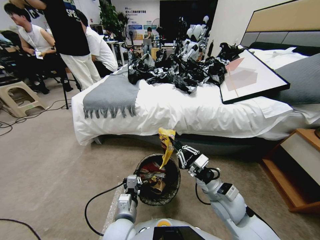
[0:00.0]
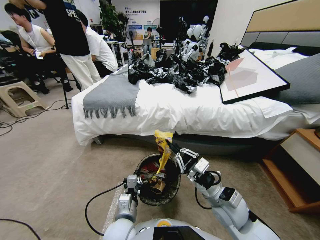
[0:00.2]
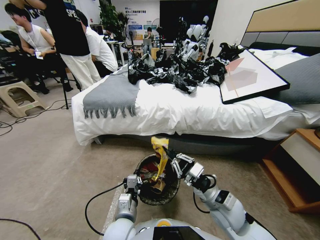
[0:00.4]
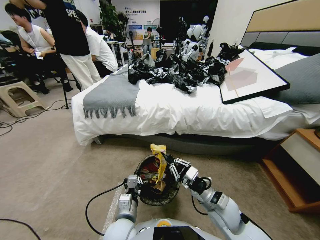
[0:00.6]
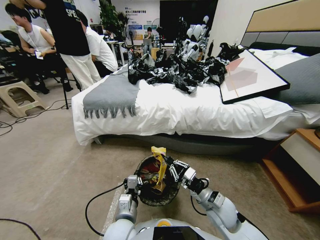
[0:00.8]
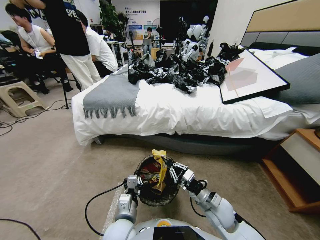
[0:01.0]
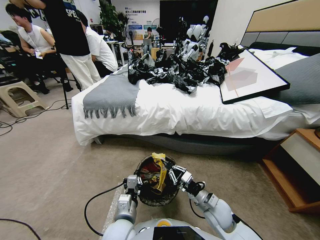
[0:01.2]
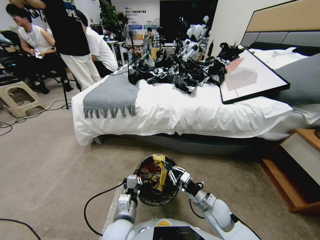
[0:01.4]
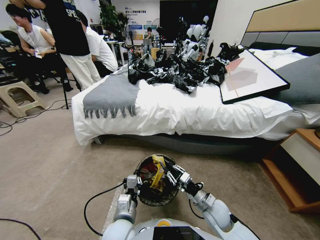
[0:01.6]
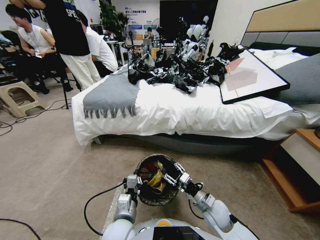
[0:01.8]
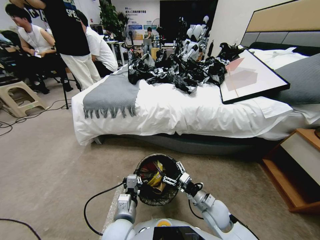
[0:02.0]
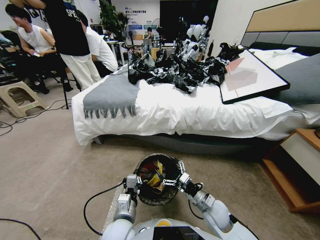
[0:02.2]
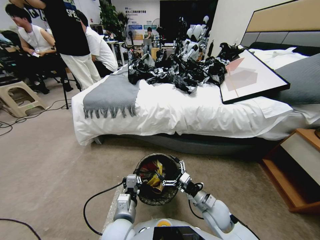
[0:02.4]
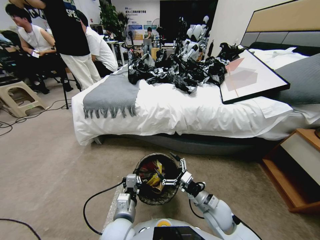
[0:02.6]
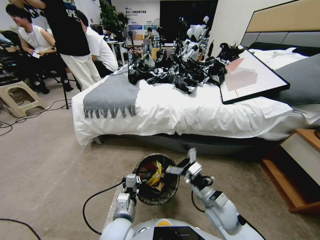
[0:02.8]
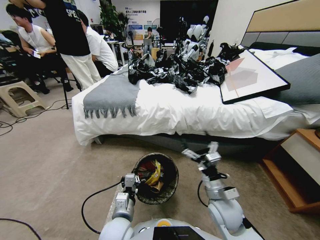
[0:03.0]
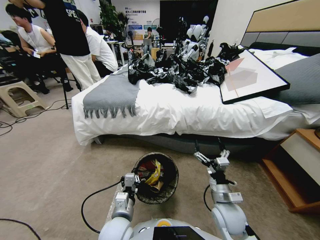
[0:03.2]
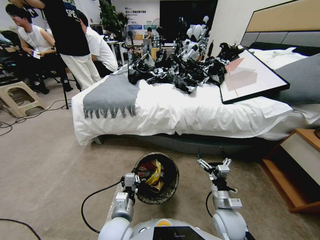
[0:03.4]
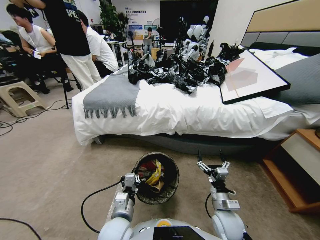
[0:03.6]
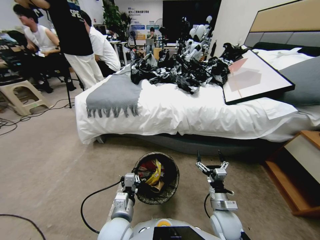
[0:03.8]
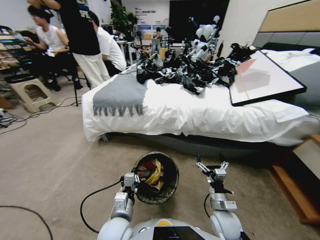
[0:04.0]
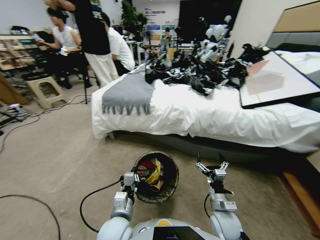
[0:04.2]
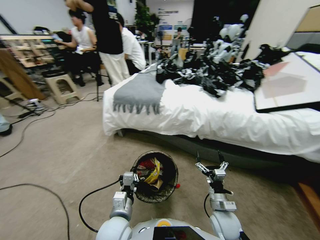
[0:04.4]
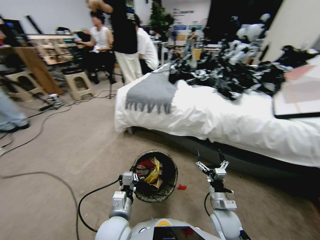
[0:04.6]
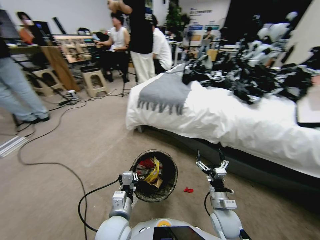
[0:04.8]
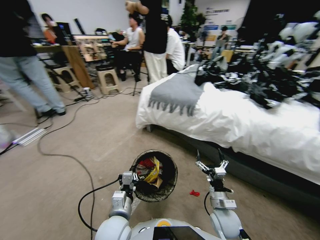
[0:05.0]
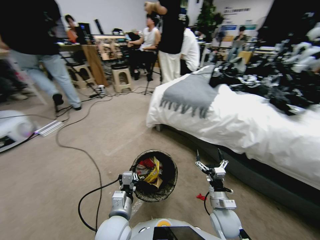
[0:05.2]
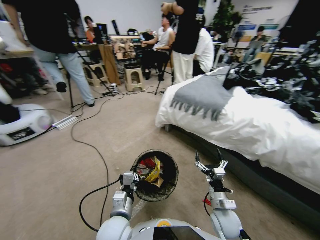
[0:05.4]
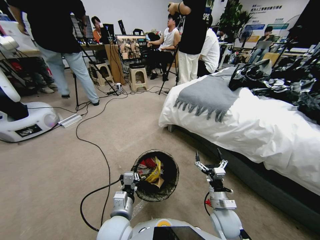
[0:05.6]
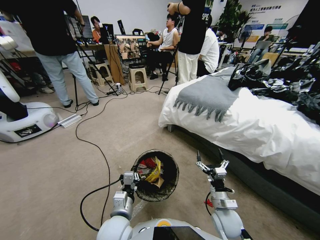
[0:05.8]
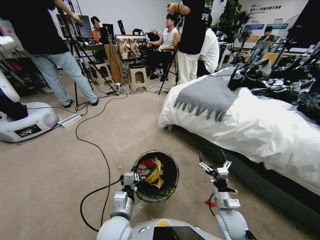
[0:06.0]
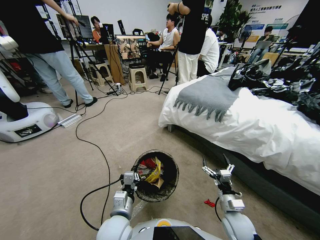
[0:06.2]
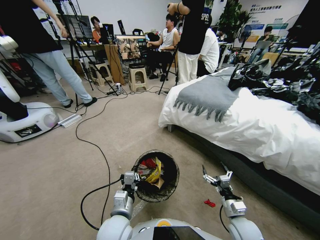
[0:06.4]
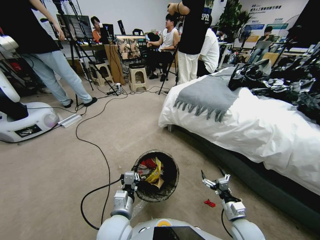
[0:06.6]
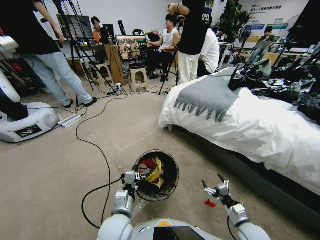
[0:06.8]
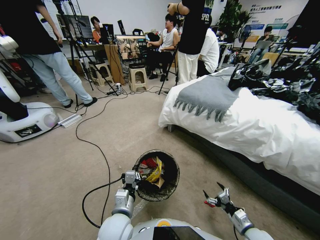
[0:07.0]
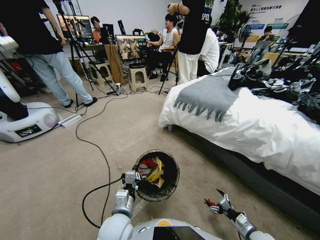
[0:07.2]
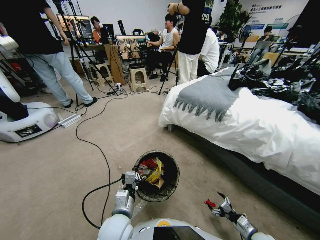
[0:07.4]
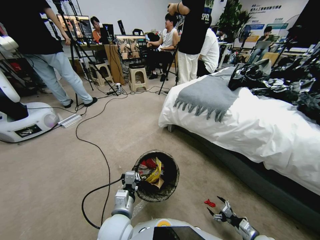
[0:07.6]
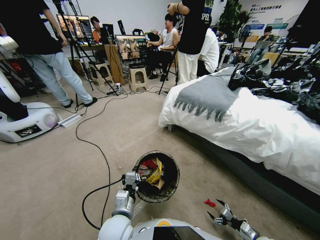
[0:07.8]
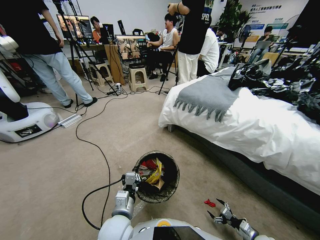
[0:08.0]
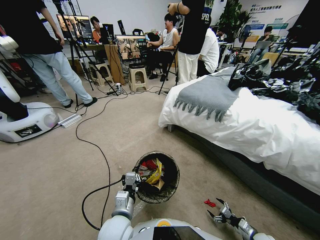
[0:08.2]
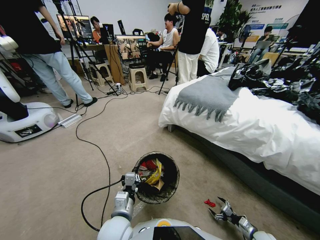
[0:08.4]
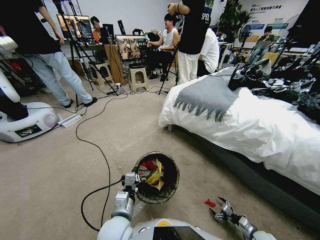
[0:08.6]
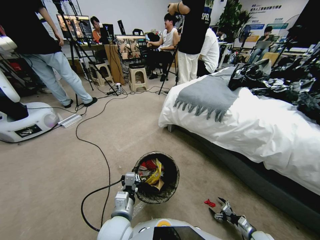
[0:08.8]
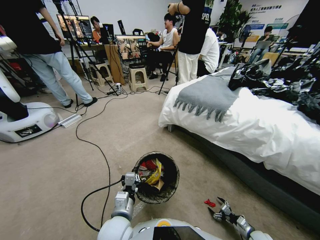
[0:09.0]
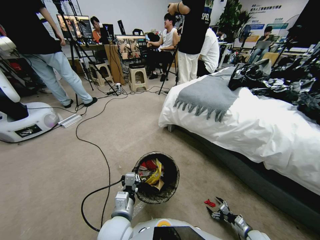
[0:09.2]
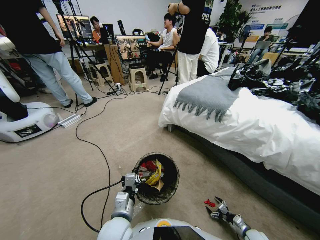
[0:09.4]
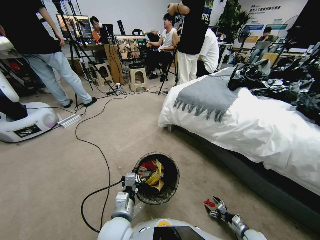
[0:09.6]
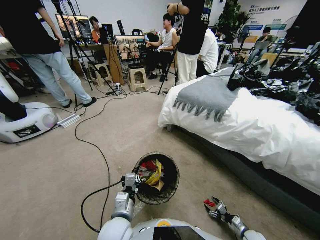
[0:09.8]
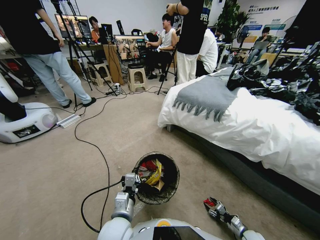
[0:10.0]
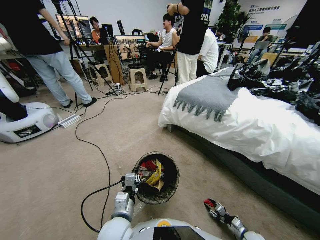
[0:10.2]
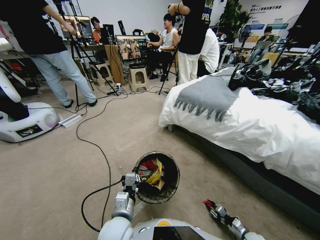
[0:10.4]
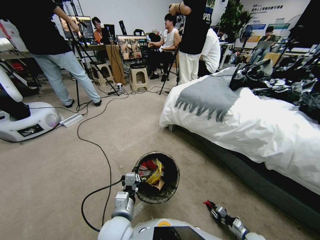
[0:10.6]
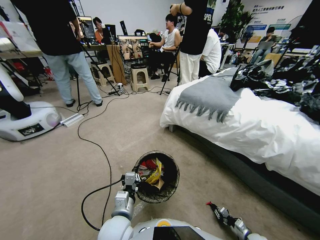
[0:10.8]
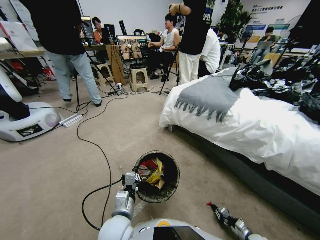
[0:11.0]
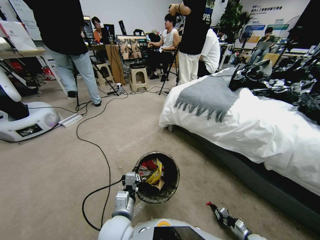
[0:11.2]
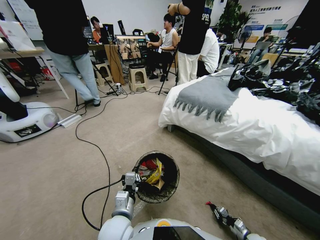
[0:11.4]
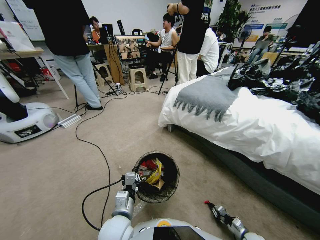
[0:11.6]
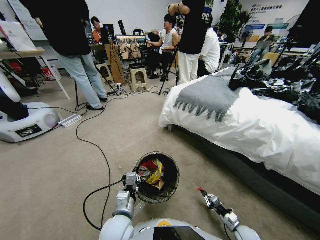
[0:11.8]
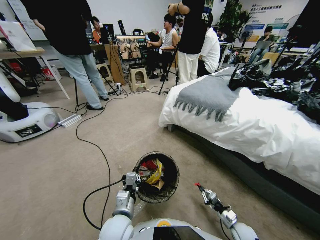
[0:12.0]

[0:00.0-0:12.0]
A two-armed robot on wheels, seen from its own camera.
Task of the whole recording: Pick up the trash bin, then pick up the garbage from the floor and place it into the trash bin.
0:00.0 to 0:01.6: The right gripper heads downward, covering some 10 cm, and opens.
0:01.6 to 0:03.0: The right gripper goes some 5 cm upward, and opens its fingers.
0:03.0 to 0:04.4: The right gripper travels downward by roughly 5 cm.
0:06.0 to 0:07.6: The right gripper travels to the right, downward and backward by roughly 25 cm.
0:07.6 to 0:09.0: The right gripper shifts some 5 cm downward.
0:09.0 to 0:10.4: The right gripper closes up.
0:10.4 to 0:12.0: The right gripper is displaced to the left, upward and forward by some 20 cm.

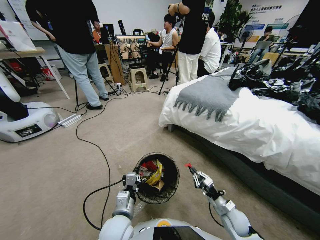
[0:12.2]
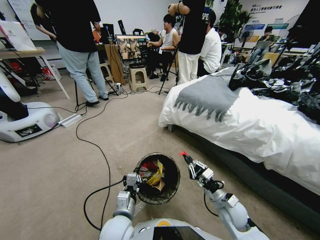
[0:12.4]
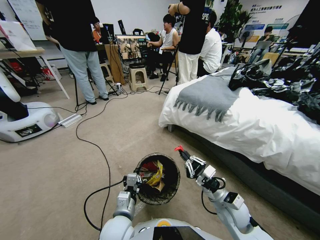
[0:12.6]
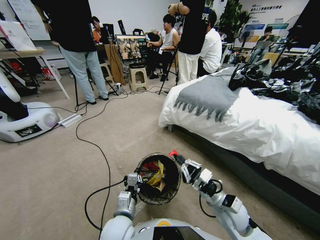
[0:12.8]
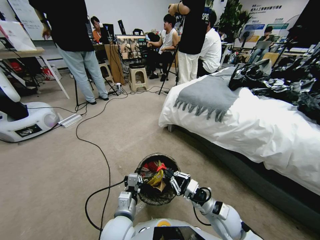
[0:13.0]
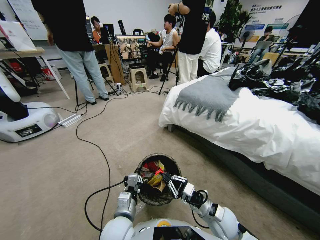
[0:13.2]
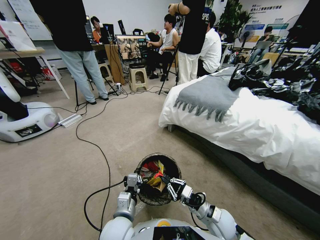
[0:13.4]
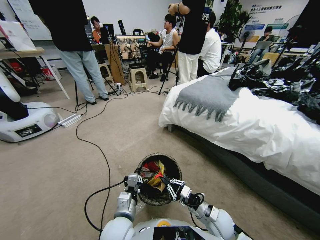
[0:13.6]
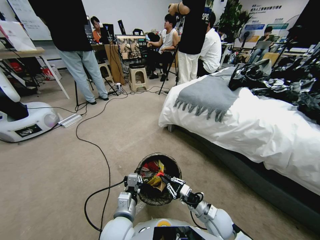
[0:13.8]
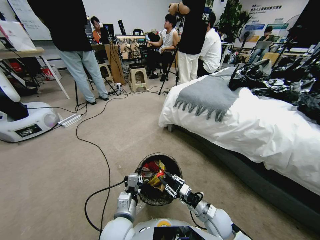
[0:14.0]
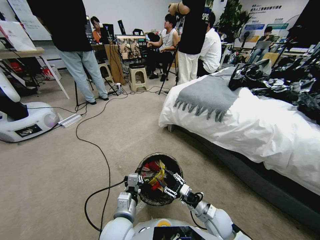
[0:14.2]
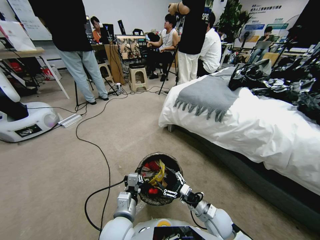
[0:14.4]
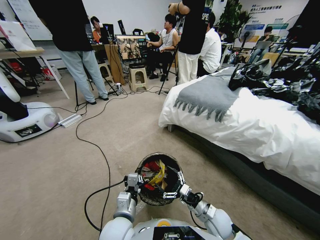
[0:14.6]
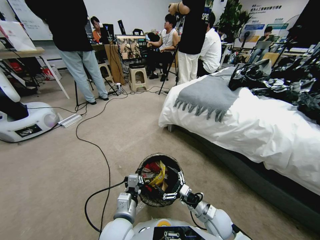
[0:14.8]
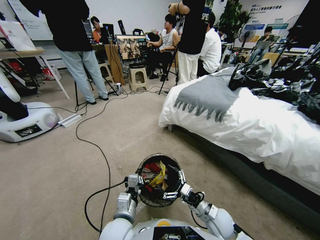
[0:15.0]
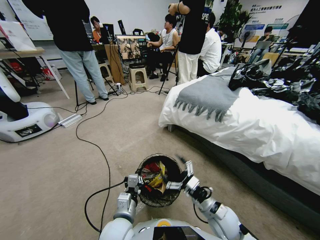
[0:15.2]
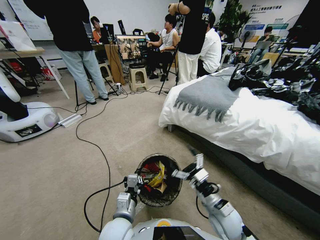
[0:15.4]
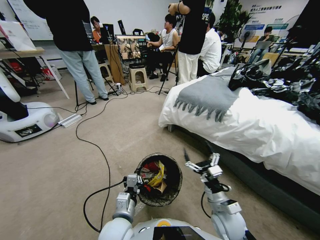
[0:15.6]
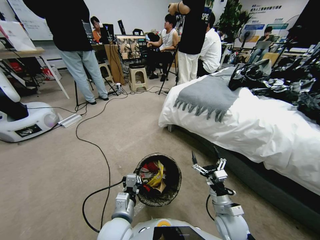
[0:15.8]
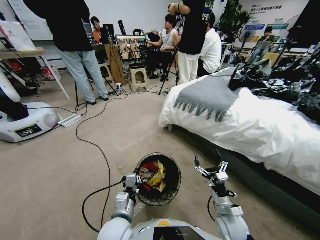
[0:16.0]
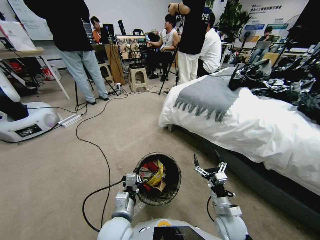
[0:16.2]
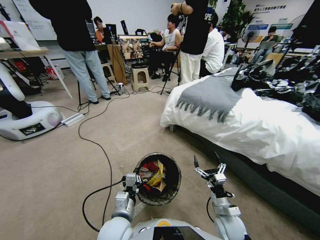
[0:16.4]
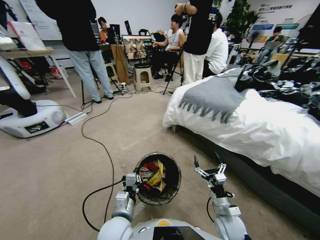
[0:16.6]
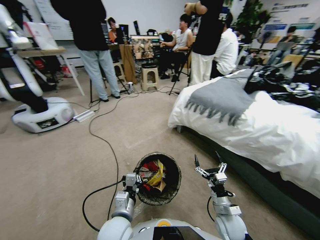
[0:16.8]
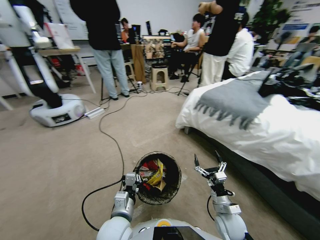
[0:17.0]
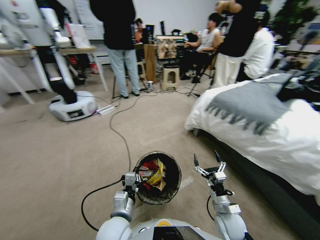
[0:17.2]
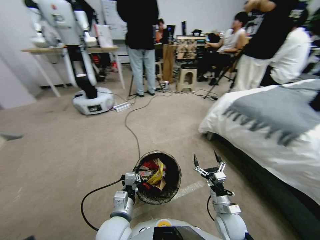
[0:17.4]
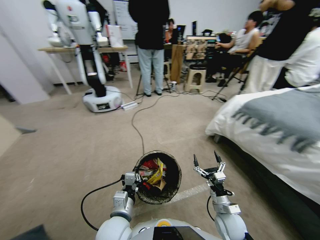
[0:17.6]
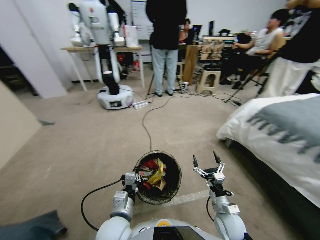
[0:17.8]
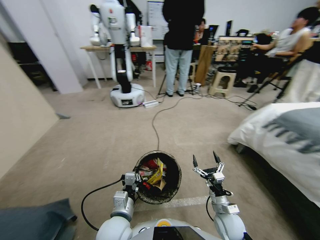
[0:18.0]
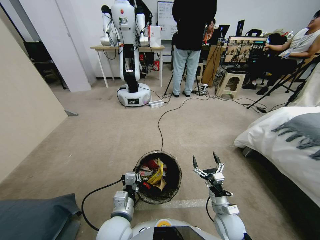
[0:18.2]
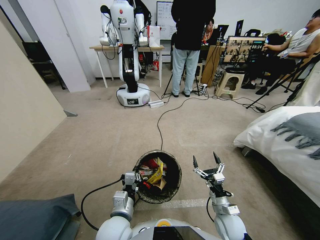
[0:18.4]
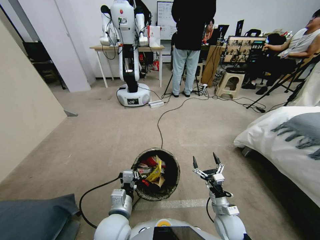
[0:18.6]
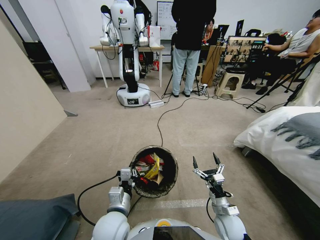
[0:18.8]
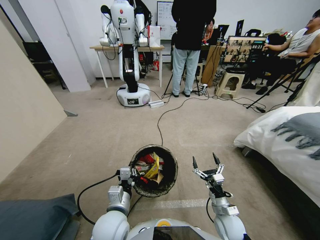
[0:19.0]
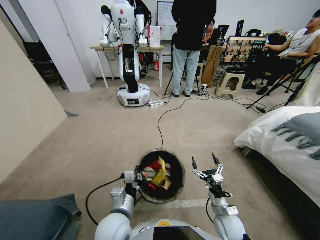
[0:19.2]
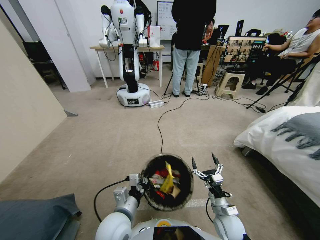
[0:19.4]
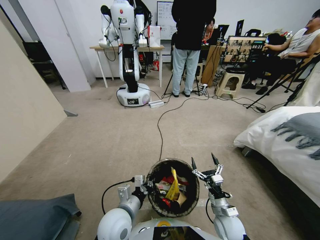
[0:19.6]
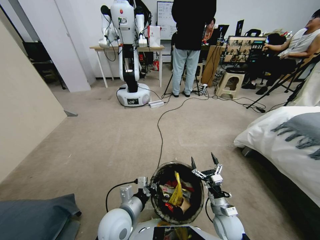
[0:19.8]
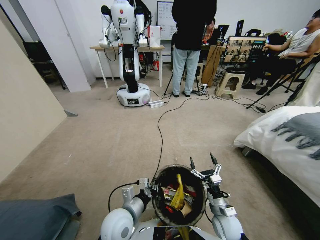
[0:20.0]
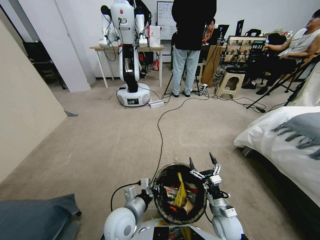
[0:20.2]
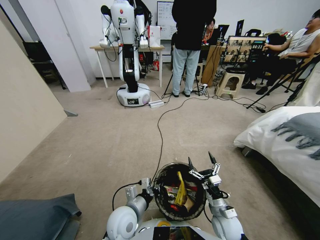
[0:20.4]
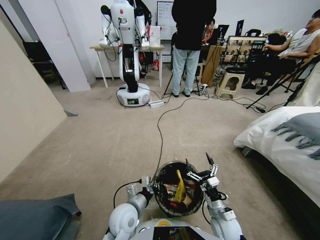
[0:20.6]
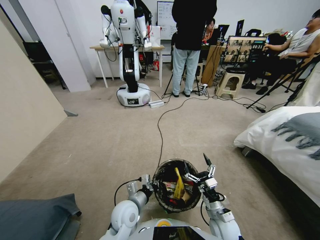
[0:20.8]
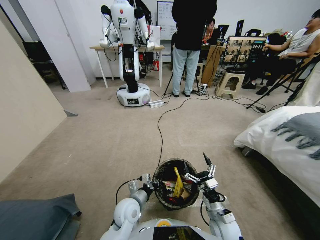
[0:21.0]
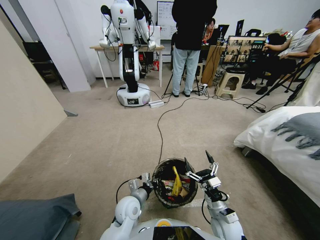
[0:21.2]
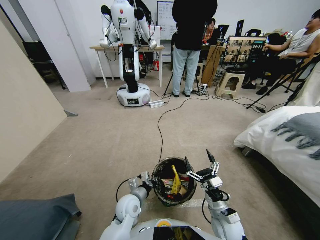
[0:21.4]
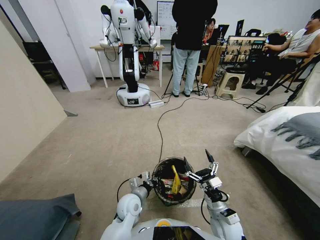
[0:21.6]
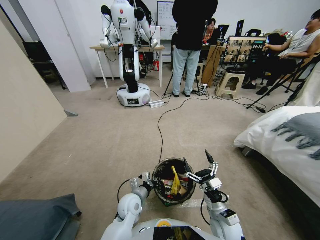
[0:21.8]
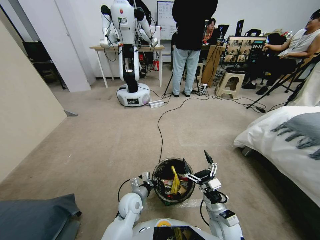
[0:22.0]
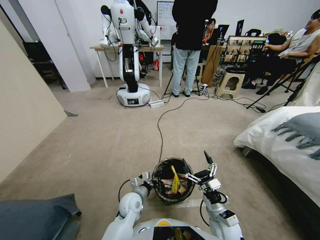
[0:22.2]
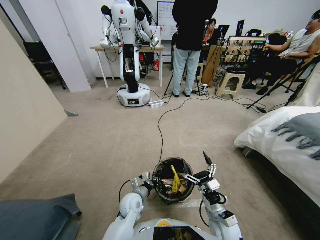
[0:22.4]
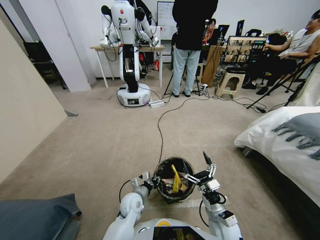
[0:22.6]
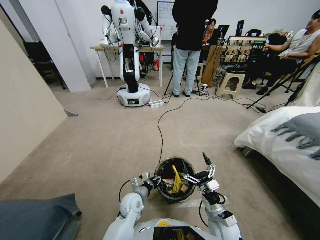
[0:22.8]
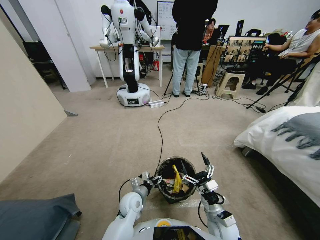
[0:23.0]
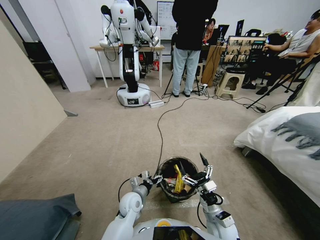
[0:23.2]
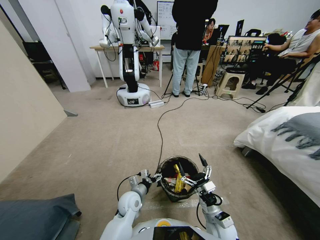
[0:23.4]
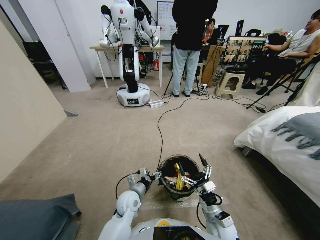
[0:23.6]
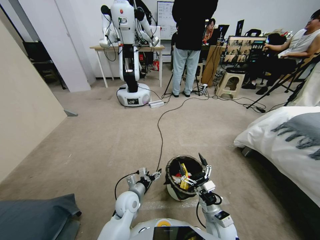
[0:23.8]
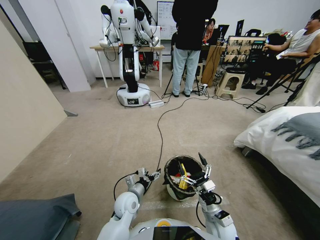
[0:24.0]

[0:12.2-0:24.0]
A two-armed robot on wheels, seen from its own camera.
Task of the whole recording: Pick up the trash bin, then pick up the garbage from the floor and place it into the trash bin.
0:12.2 to 0:13.6: The right gripper travels to the left by about 5 cm, and travels upward and back again, approximately 10 cm each way.
0:13.6 to 0:15.2: The right gripper is displaced upward by some 5 cm, and opens up.
0:15.2 to 0:16.6: The right gripper travels downward by about 5 cm.
0:19.6 to 0:21.0: The left gripper moves downward and forward, approximately 10 cm.
0:21.0 to 0:22.6: The left gripper opens up.
0:22.6 to 0:24.0: The left gripper opens its fingers.
